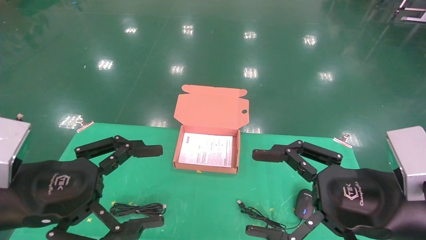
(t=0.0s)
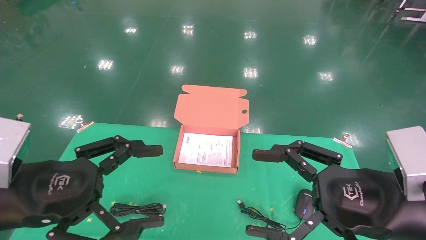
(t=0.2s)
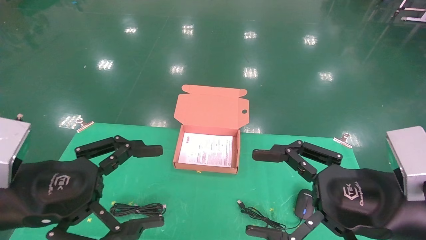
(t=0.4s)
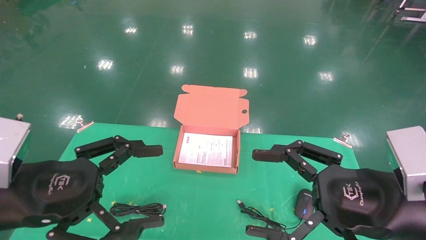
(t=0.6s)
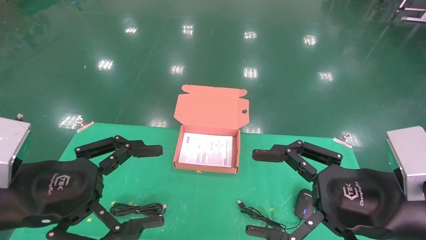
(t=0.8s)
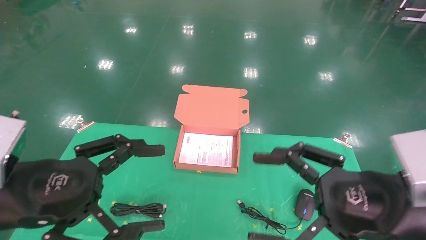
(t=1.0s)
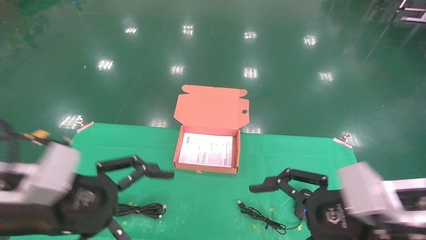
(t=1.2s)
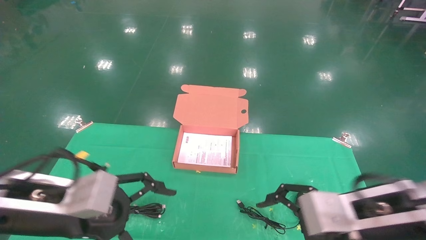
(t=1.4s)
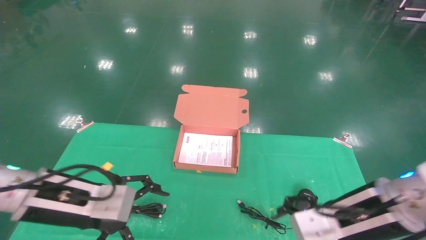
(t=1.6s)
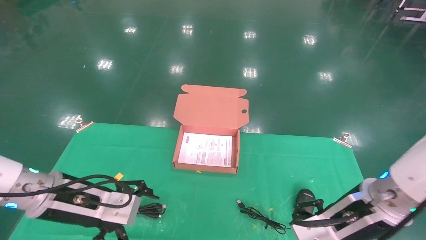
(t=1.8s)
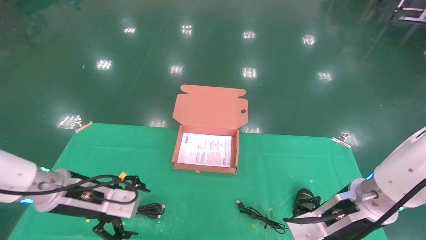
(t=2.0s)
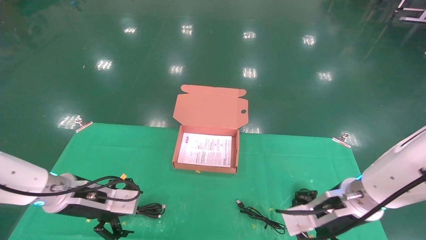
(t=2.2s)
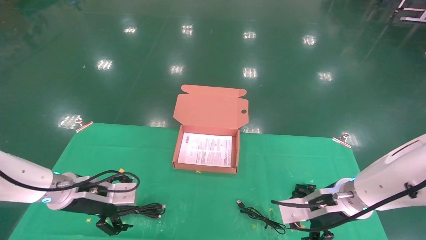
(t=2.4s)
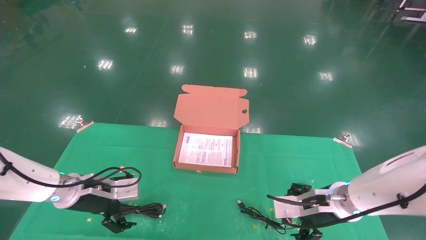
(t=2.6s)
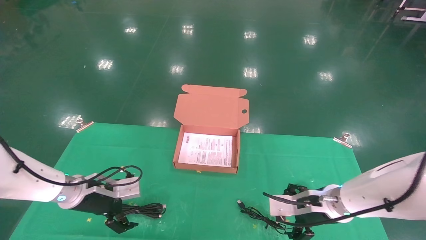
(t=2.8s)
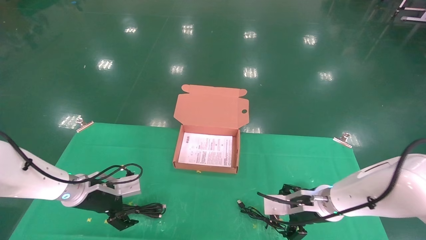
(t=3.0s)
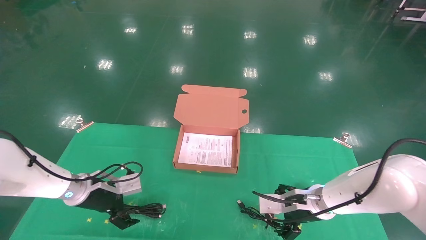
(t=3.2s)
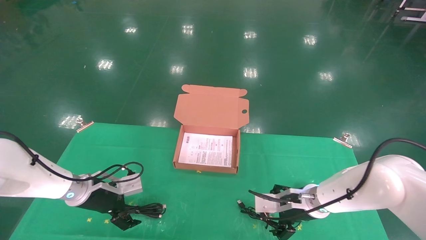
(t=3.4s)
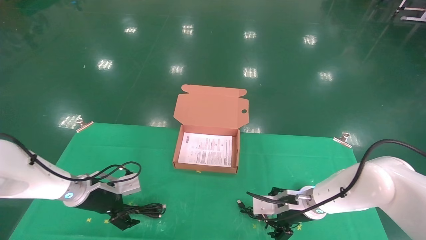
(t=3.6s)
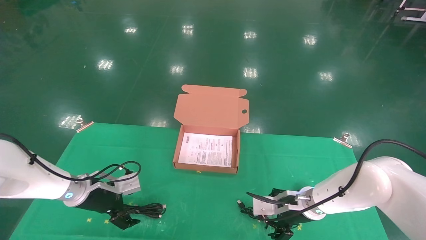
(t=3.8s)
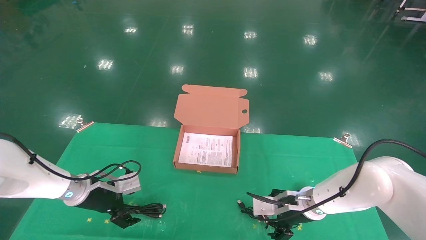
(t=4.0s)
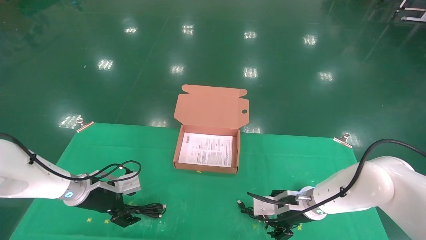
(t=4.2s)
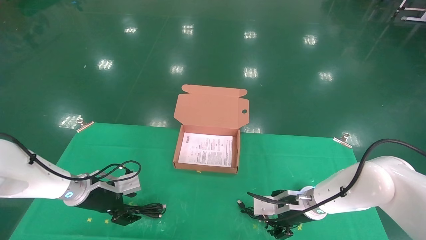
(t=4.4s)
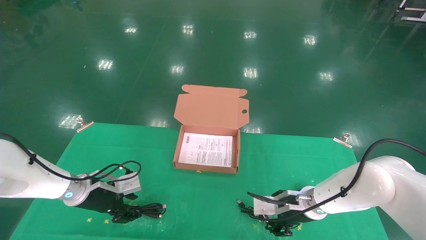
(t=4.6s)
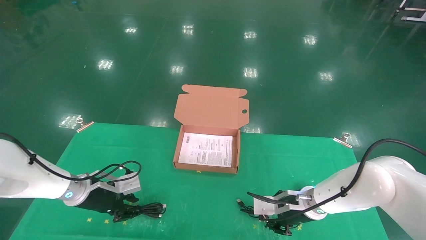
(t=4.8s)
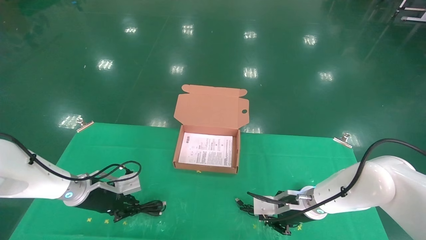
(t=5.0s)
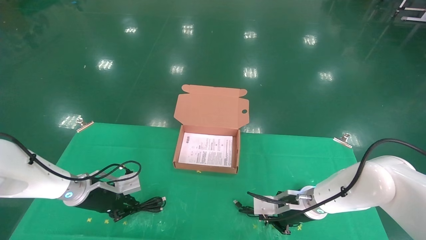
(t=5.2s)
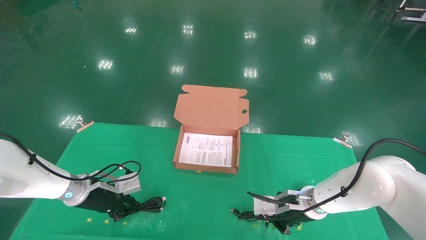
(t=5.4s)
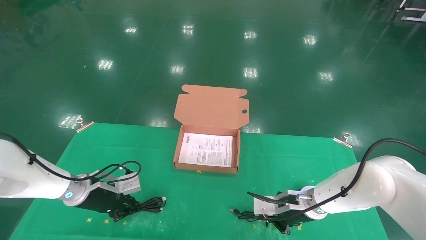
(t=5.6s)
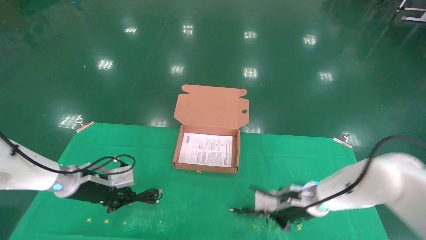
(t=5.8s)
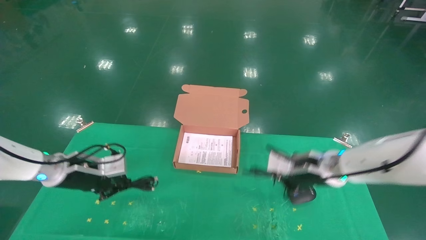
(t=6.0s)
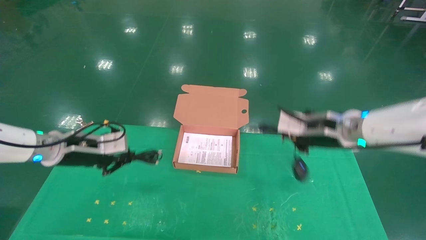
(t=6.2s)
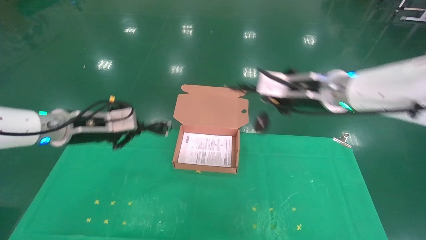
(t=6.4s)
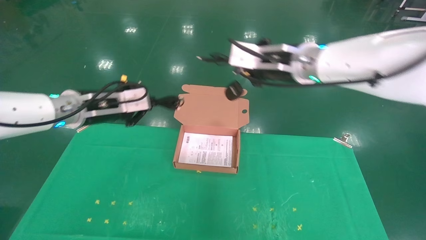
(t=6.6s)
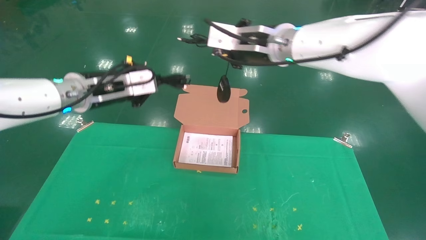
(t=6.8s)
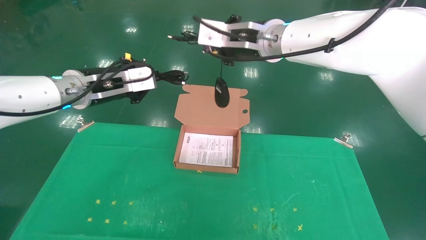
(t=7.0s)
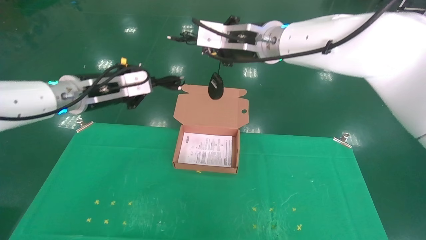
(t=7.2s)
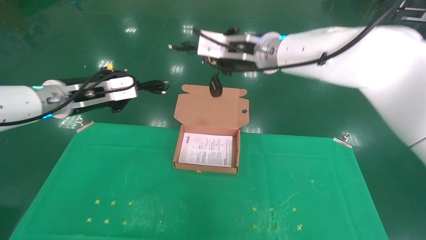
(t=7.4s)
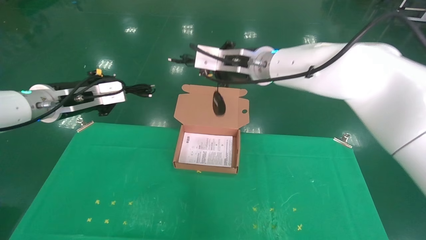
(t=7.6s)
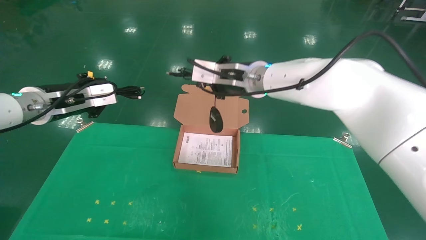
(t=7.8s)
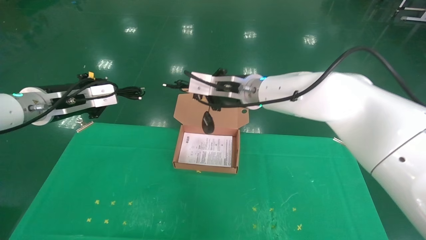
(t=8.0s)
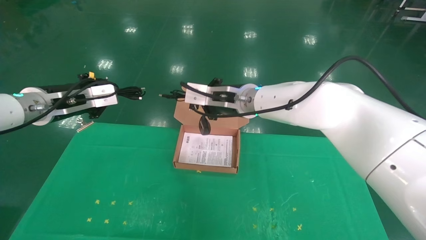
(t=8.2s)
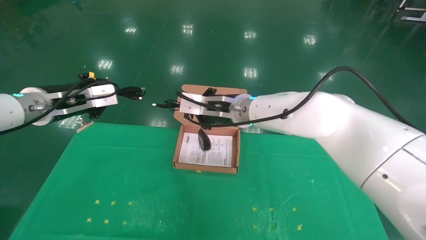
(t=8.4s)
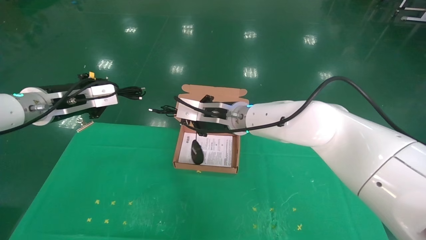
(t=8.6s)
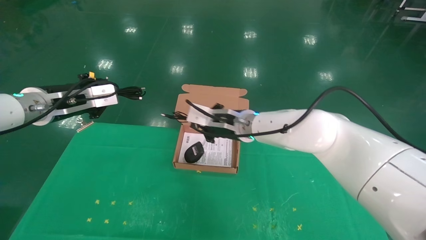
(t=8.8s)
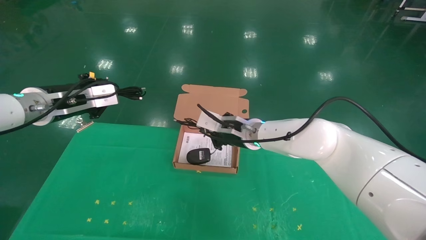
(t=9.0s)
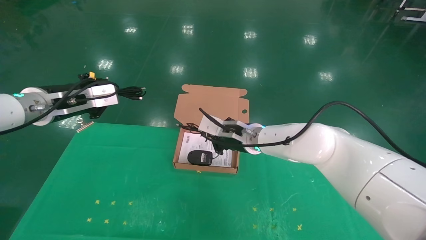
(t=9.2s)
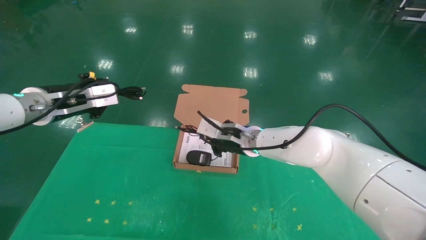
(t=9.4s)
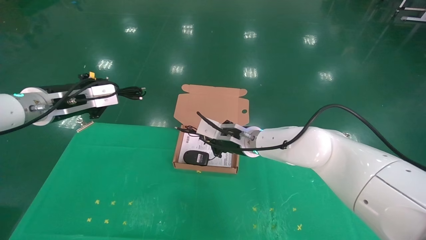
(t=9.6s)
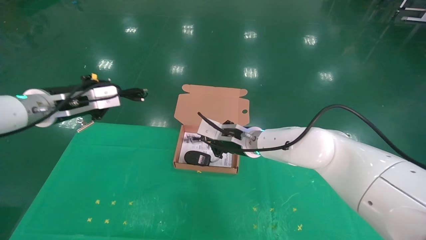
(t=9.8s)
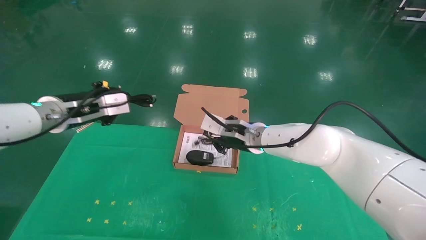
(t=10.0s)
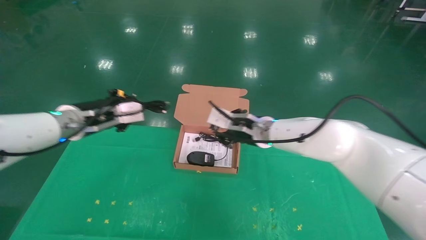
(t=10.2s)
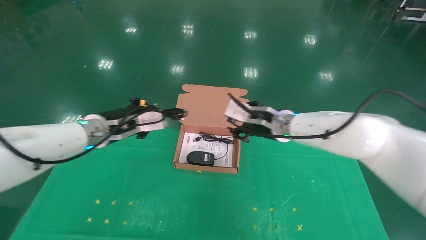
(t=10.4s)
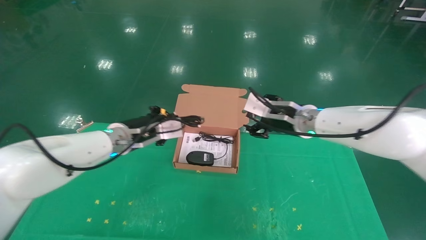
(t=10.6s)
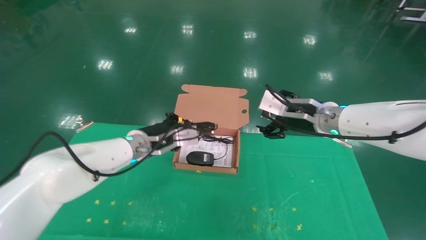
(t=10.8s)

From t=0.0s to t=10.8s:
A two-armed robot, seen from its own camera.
Task of the whole recording: grasp data cable left put into box grasp mouse right put into box.
Step, from t=1.0s to t=6.0s: Grab and pick up both the mouse and power cord from the accessory packaging area at the same time.
From t=0.0s to t=1.6s: Both grippers travel together forward, approximately 5 cm.
From t=1.6s to t=3.0s: The grippers both shift forward and downward by about 15 cm.
From t=3.0s to t=4.6s: The left gripper closes its fingers; the right gripper closes.
From t=4.6s to t=6.2s: The right gripper heads upward, covering some 20 cm, and closes; the left gripper travels upward by roughly 10 cm, and closes its fingers.
From t=6.2s to t=7.8s: The left gripper moves upward, roughly 10 cm. Meanwhile the right gripper is displaced to the left and upward by roughly 20 cm.
From t=7.8s to t=9.2s: The right gripper goes approximately 15 cm downward.
From t=9.2s to t=10.8s: The right gripper shifts approximately 15 cm to the right, upward and backward, and opens; the left gripper heads to the right, downward and forward, covering approximately 20 cm.

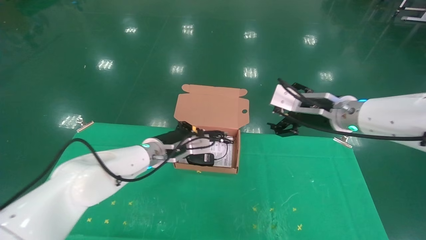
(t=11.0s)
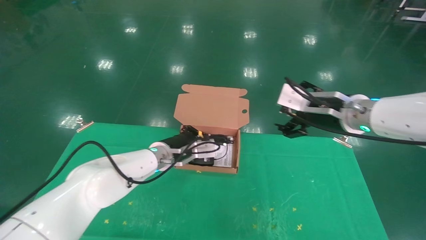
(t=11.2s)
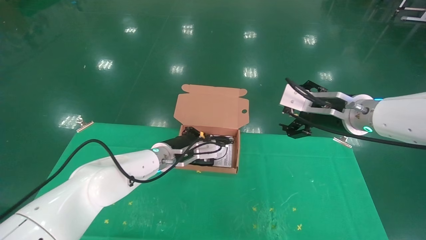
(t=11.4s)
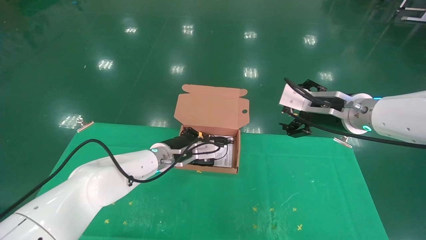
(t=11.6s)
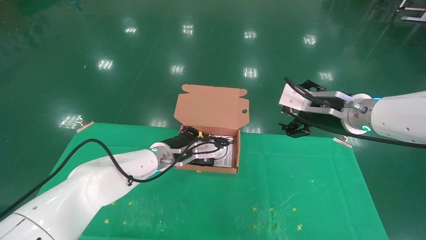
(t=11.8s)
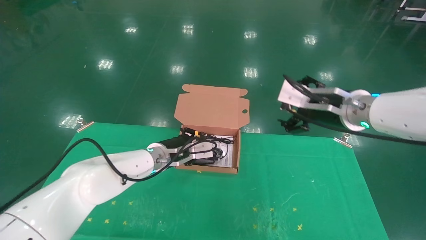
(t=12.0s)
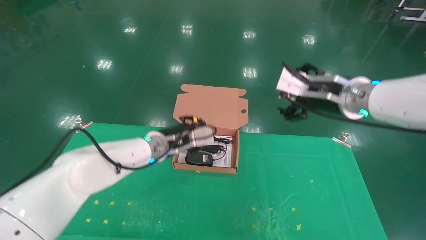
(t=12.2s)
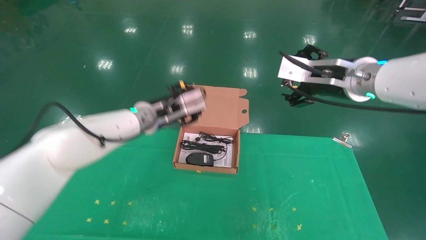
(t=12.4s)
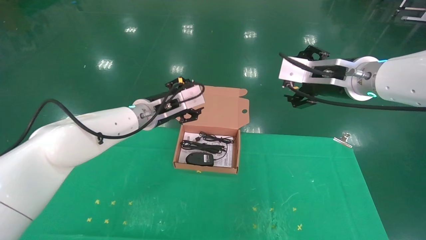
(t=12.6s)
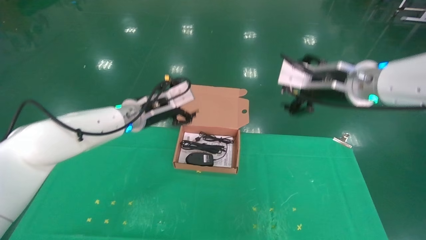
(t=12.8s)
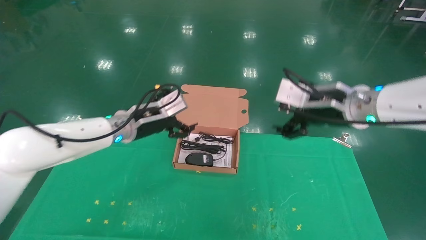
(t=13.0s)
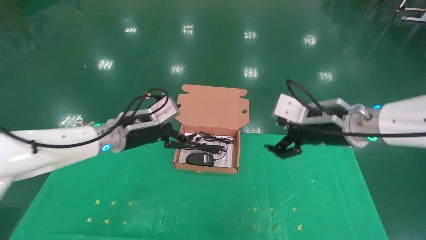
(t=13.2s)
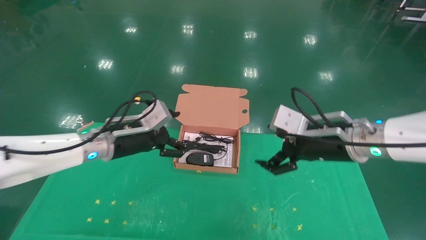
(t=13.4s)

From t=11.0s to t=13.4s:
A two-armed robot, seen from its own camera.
Task of the whole recording: grasp data cable left put into box grasp mouse right put into box.
From t=11.0s to t=12.2s: There are only small adjustments of the grippers.
From t=12.2s to t=13.4s: The right gripper travels downward by roughly 5 cm. The left gripper heads to the left and backward, covering some 10 cm, and opens its fingers.

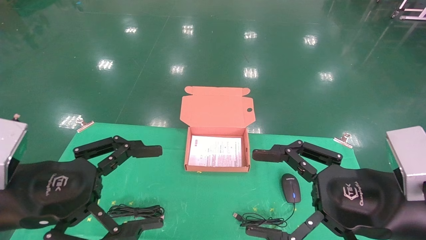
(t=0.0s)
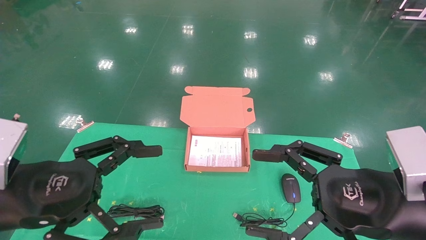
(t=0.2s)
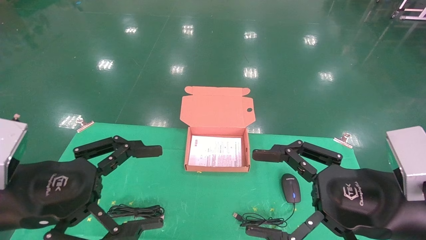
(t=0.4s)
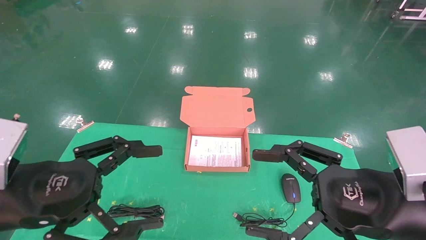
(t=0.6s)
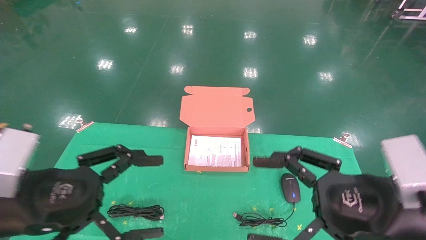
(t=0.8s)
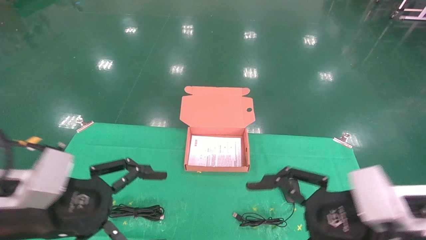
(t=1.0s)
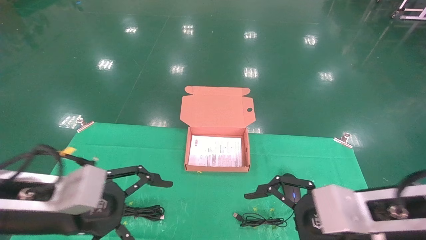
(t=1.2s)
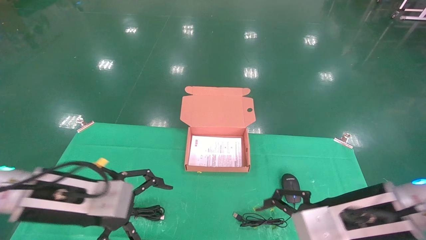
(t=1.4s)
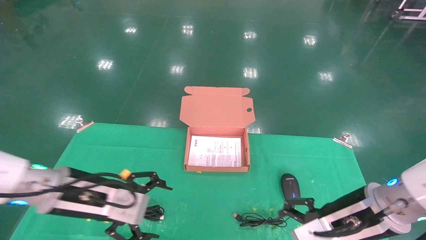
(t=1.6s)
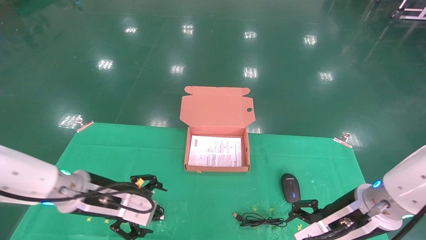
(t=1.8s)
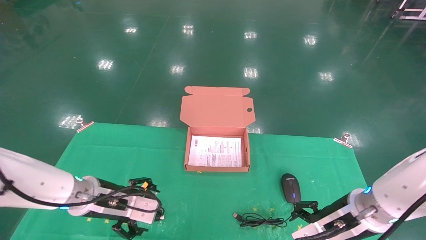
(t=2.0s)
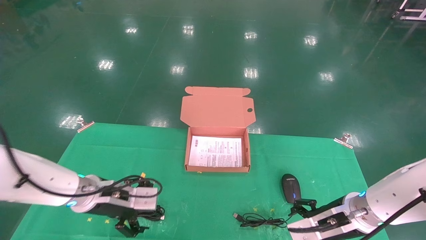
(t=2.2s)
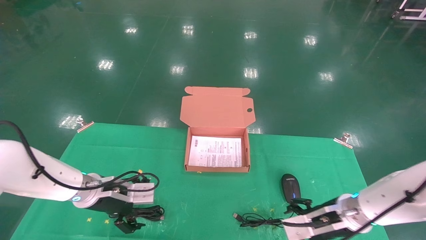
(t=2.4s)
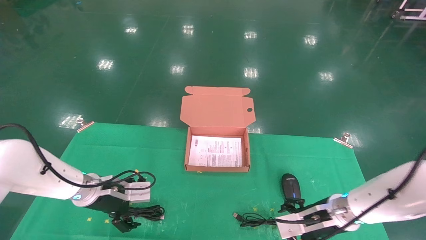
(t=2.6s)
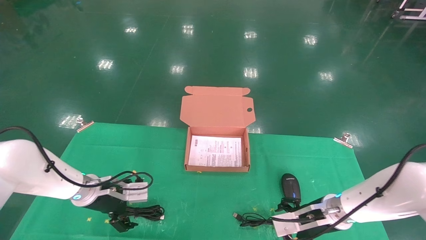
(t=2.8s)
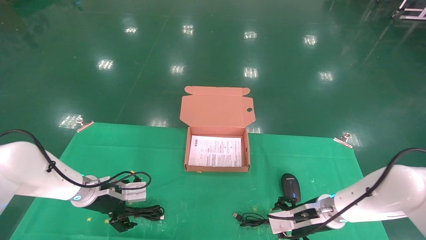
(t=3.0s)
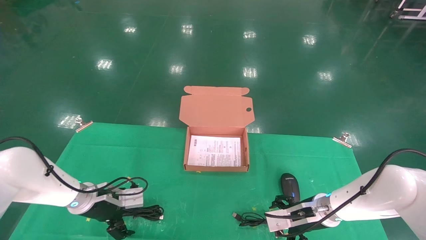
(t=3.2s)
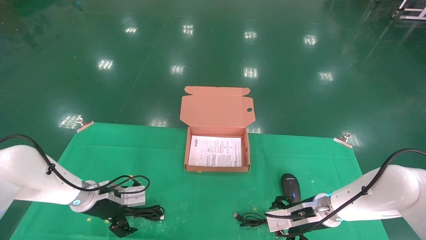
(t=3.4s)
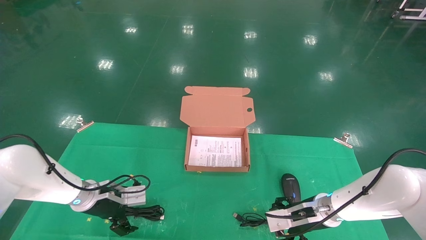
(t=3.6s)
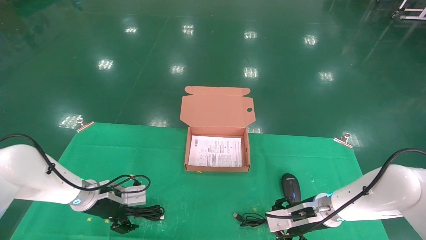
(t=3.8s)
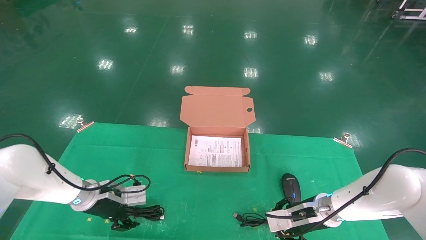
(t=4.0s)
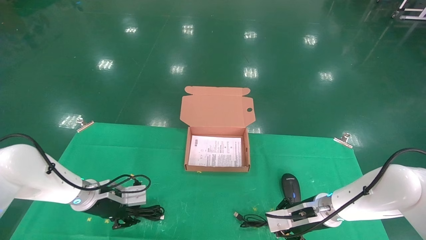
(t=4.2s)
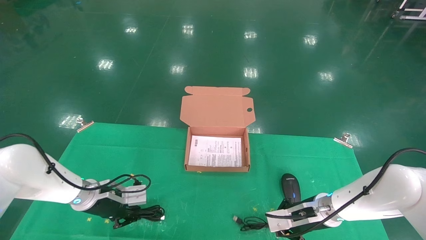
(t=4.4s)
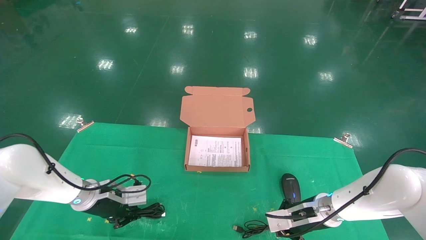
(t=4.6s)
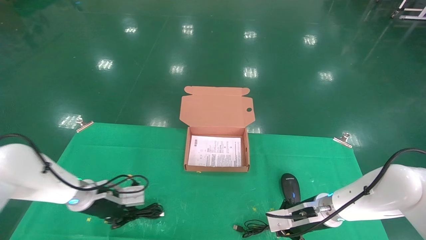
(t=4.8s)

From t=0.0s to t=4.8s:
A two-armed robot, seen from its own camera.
Task of the whole recording: grasp data cable left put into box grasp mouse right put into box.
From t=0.0s to t=1.6s: Both grippers travel together forward and downward, approximately 10 cm.
From t=1.6s to t=3.2s: Both grippers travel together forward and downward, about 15 cm.
From t=3.2s to t=4.8s: The left gripper closes up; the right gripper closes its fingers.
